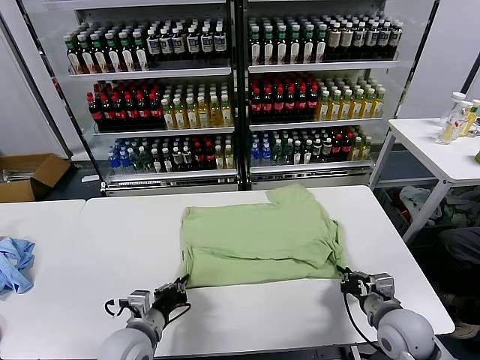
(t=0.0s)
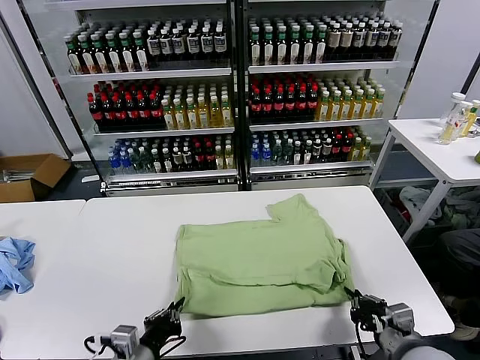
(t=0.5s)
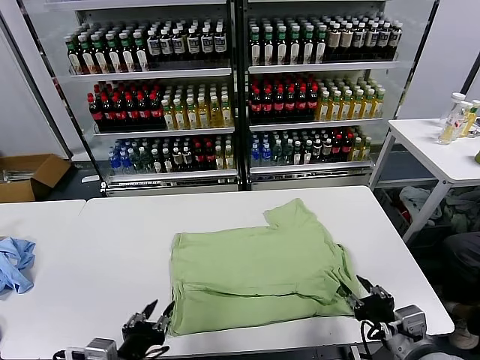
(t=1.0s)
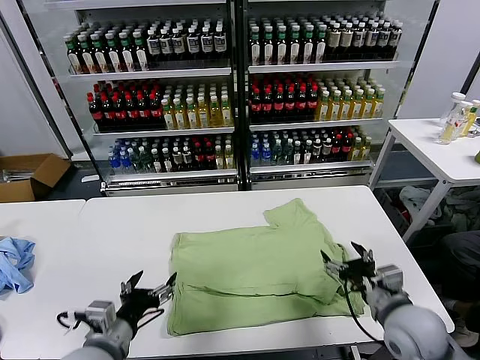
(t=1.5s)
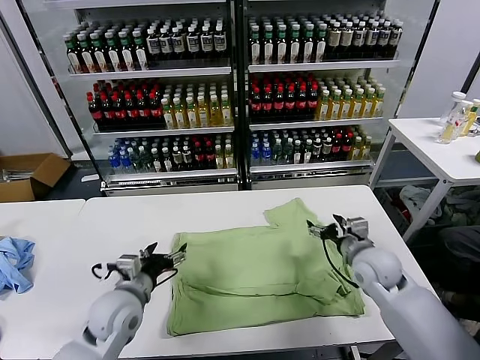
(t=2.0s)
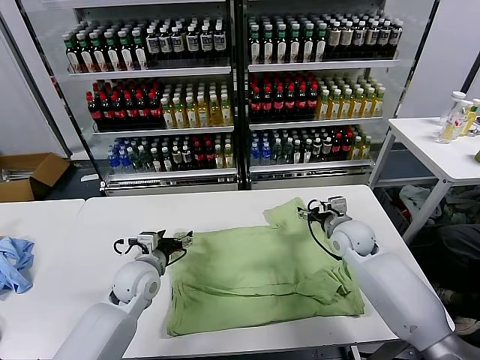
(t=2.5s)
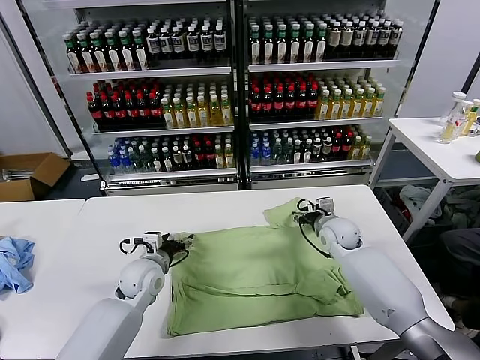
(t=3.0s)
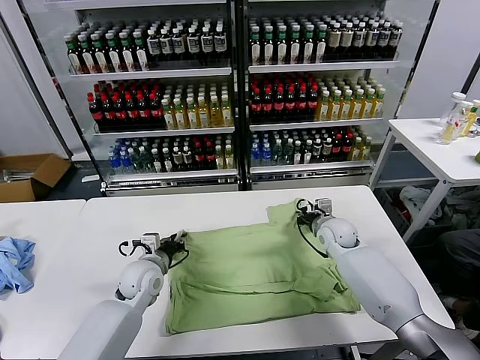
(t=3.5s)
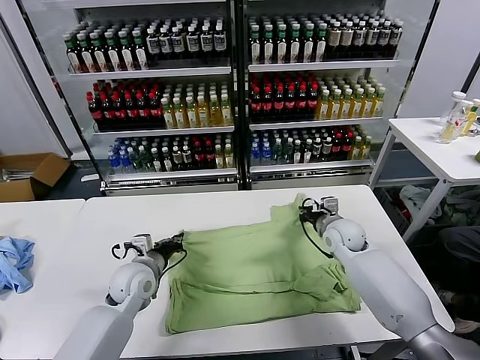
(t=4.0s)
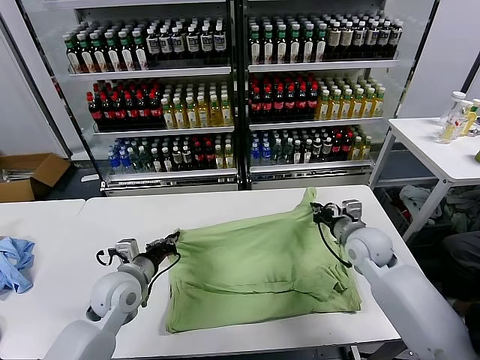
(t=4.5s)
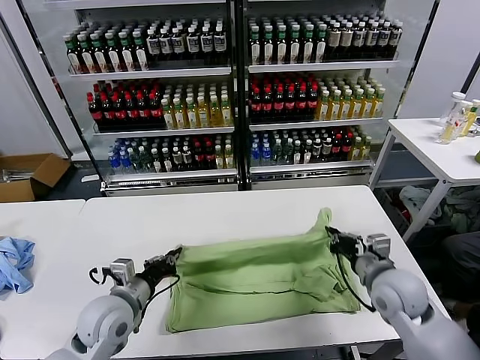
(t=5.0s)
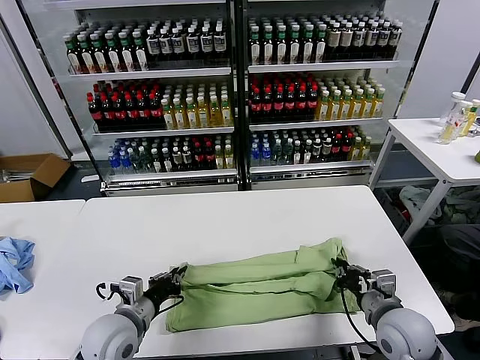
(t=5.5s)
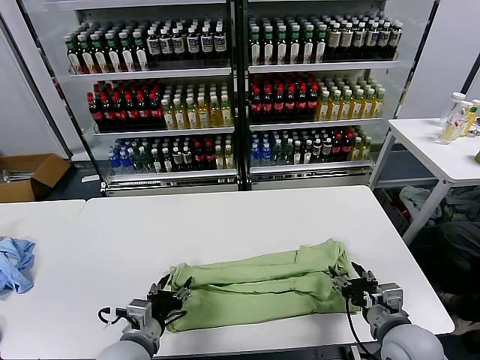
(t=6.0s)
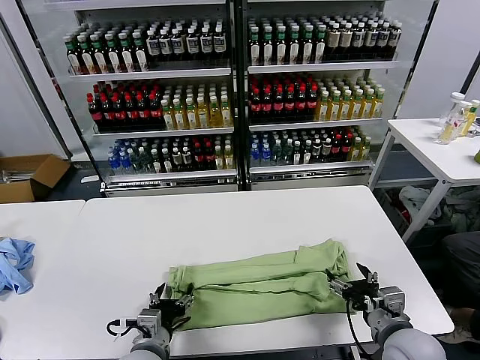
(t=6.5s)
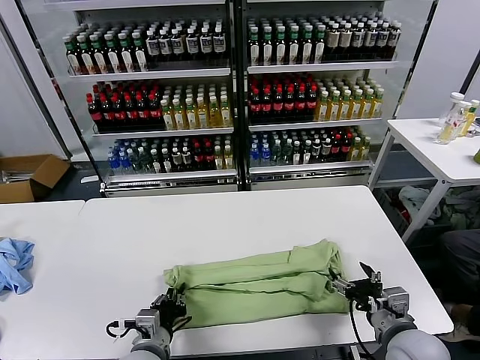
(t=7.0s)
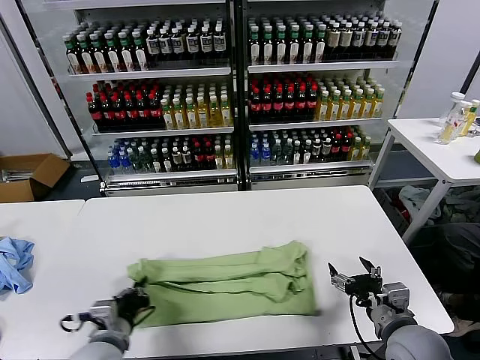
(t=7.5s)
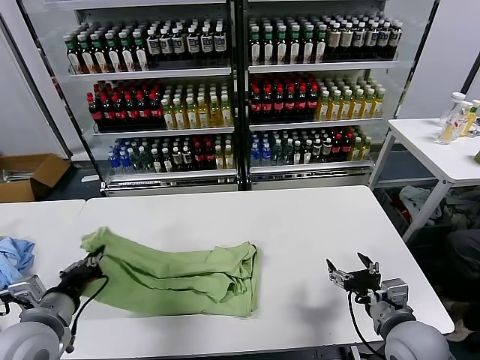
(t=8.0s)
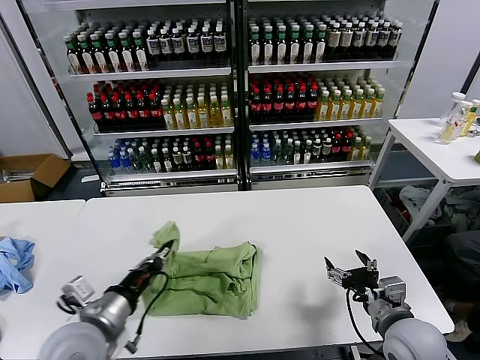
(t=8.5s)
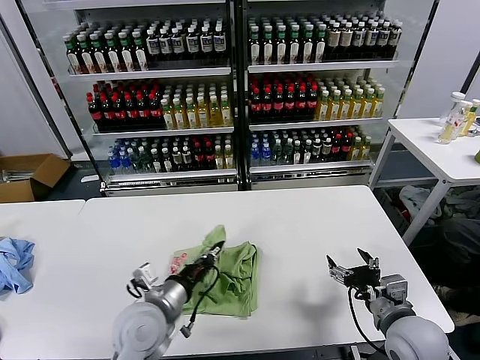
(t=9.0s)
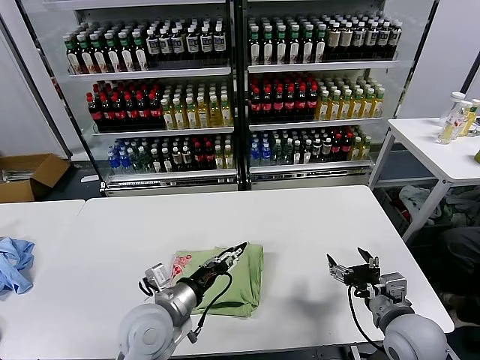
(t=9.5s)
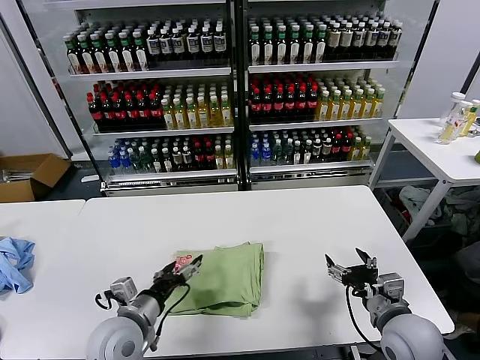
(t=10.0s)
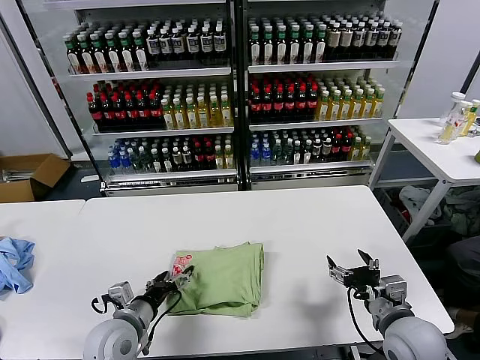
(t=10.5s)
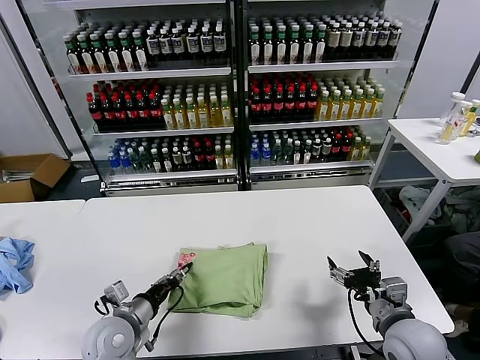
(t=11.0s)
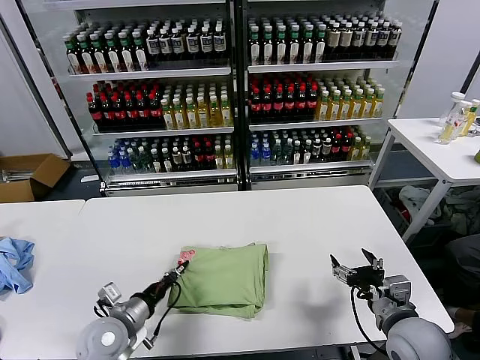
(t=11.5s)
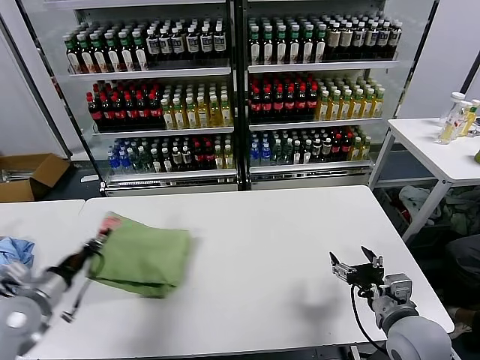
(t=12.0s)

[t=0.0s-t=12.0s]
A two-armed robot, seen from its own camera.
Task of the whole recording: fold and organize the clothes.
Step, t=1.0s to t=3.5s: use both grippers simultaneously to clamp the upper edge of the clothing fabric.
Step, t=4.0s to t=5.5s: use both grippers to drag the upper edge of the fabric backward and fold it over the lower edge.
Step, t=6.0s to t=7.0s: use the left gripper to clamp the left edge of the fabric.
Step, t=7.5s to t=9.5s: use the left gripper to drag the left edge of the fabric to the left and folds it over the right edge.
t=0.0s to t=2.0s: The right gripper shifts some 15 cm forward, and opens up. Meanwhile the left gripper heads forward, covering about 5 cm, and opens its fingers.
t=2.0s to t=4.0s: The grippers both shift forward by about 10 cm. The right gripper closes its fingers, while the left gripper closes up.
t=4.0s to t=6.0s: The right gripper is displaced backward by approximately 25 cm, and opens. The left gripper is displaced backward by some 15 cm, and opens up.
t=6.0s to t=8.0s: The left gripper moves to the left and upward, roughly 15 cm, and closes up.
t=8.0s to t=10.0s: The left gripper shifts roughly 15 cm to the right and downward, and opens its fingers.
t=10.0s to t=12.0s: The left gripper shifts about 20 cm to the left, and closes up.

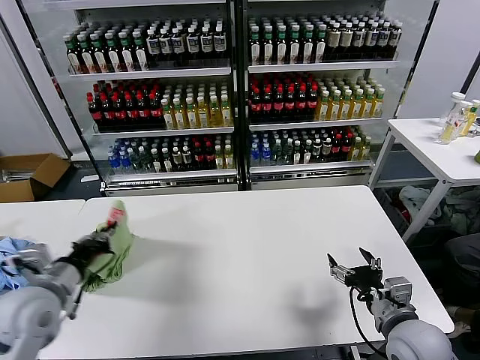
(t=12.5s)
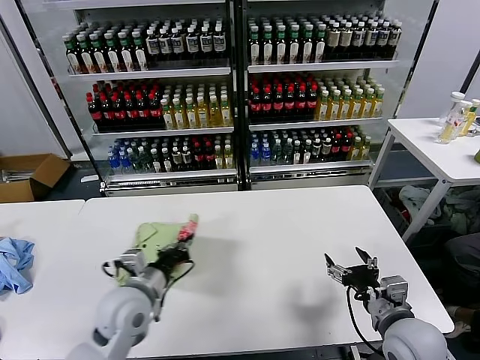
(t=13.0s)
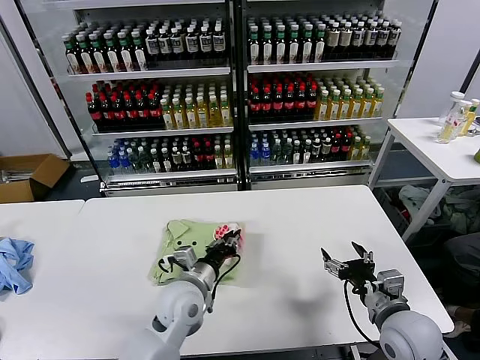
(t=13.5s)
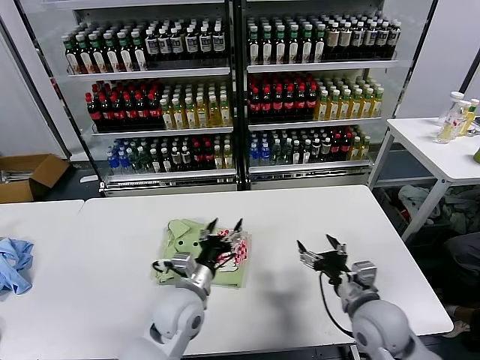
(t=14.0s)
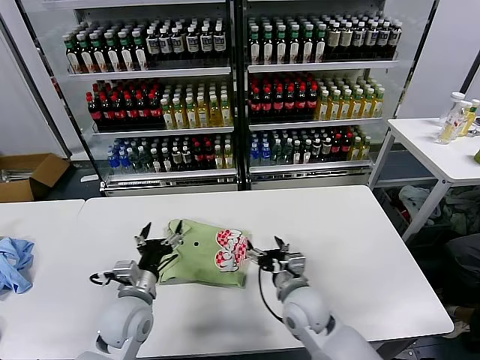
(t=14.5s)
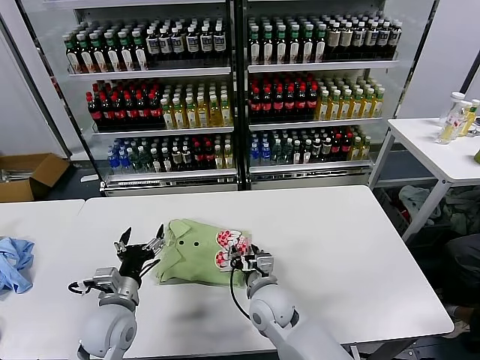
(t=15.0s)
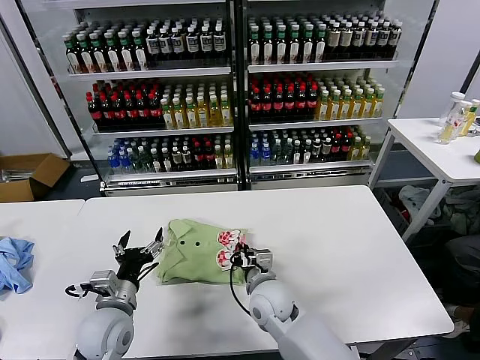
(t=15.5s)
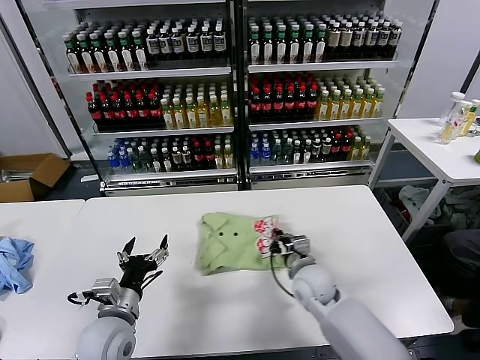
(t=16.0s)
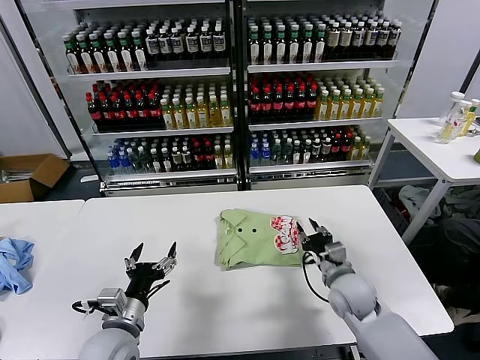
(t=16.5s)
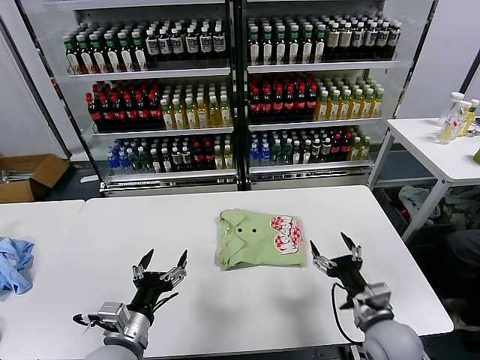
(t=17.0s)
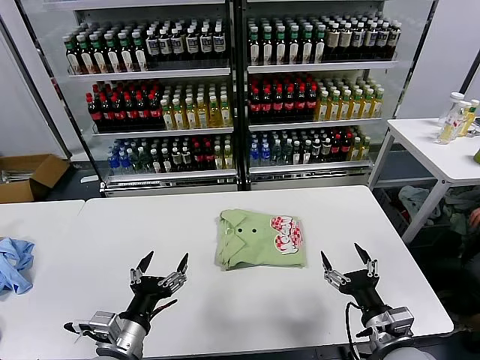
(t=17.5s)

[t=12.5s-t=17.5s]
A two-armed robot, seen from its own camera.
Task of the whole recording: fold and organize the clothes.
Step, t=14.0s to t=16.0s: Drag the clothes to the center of the table.
t=12.5s to t=15.0s: The right gripper moves to the left and forward, roughly 25 cm. The left gripper shifts some 15 cm downward and to the right, and opens.
t=15.0s to t=17.5s: The left gripper travels backward by about 10 cm. Meanwhile the right gripper is displaced to the right and backward by approximately 25 cm, and closes and opens again.
